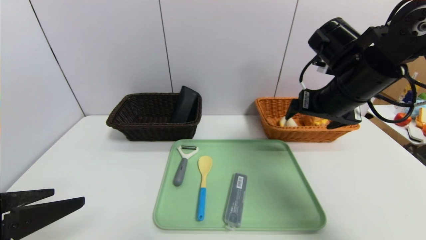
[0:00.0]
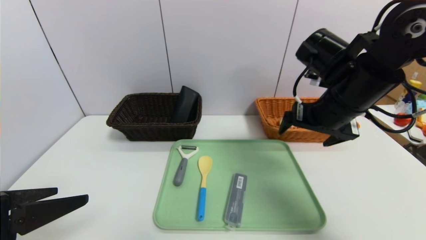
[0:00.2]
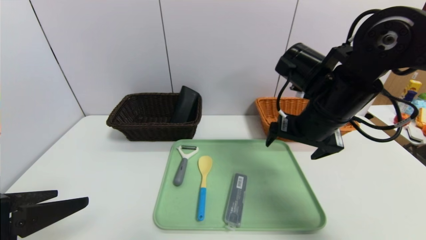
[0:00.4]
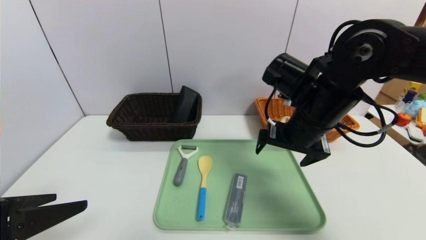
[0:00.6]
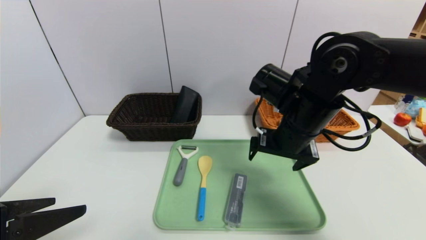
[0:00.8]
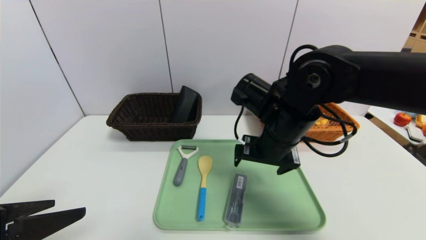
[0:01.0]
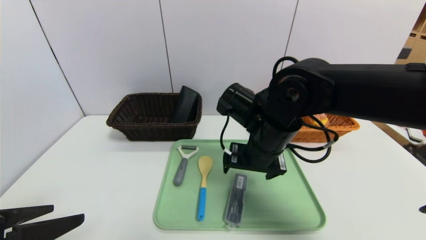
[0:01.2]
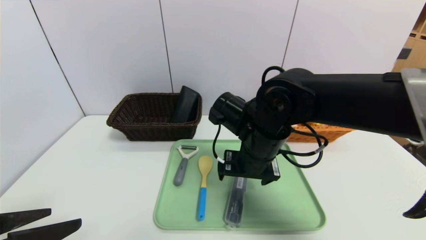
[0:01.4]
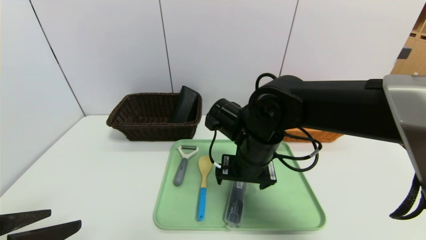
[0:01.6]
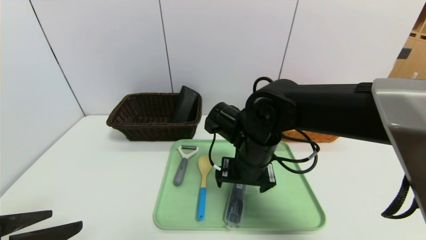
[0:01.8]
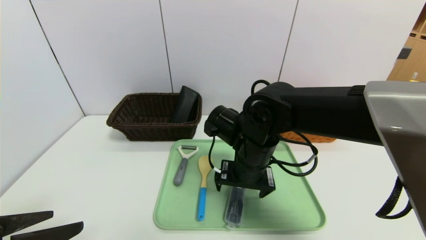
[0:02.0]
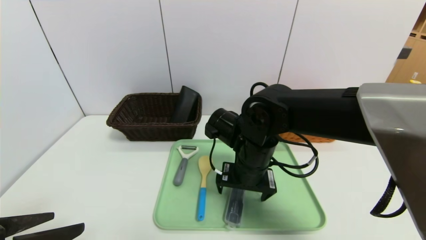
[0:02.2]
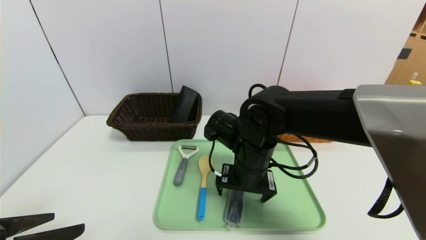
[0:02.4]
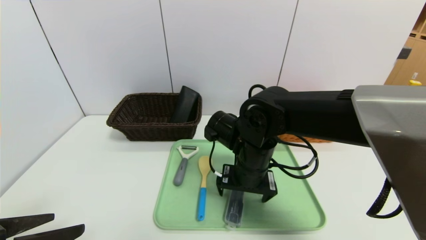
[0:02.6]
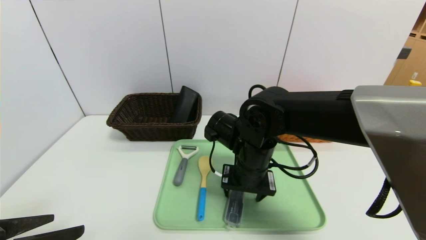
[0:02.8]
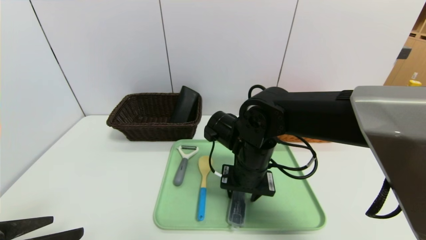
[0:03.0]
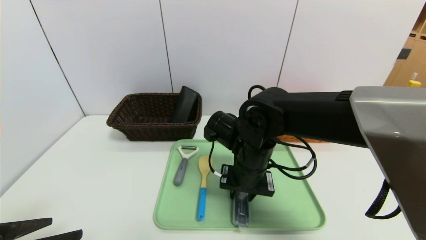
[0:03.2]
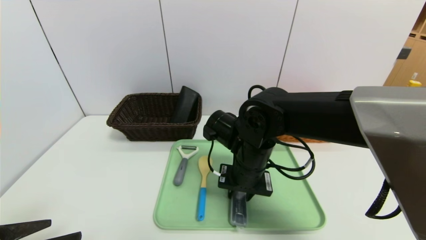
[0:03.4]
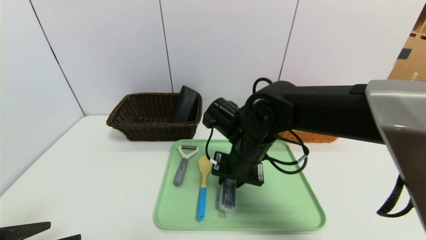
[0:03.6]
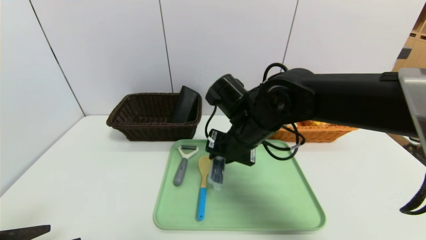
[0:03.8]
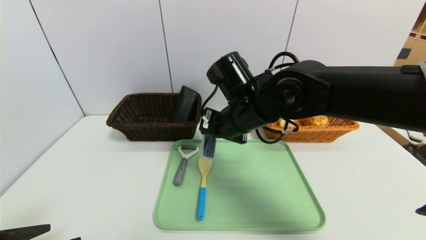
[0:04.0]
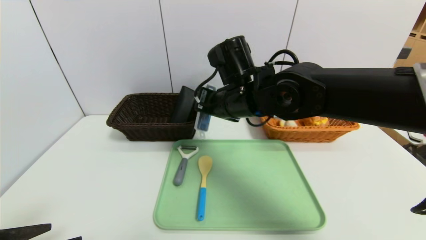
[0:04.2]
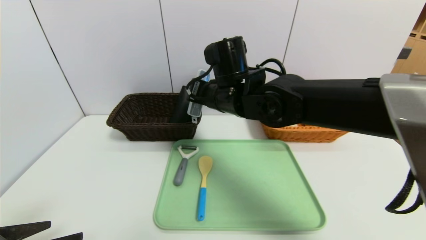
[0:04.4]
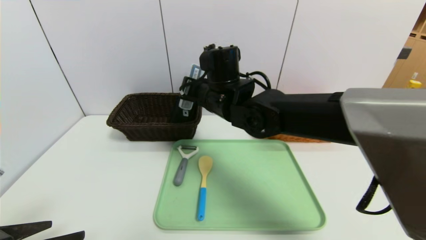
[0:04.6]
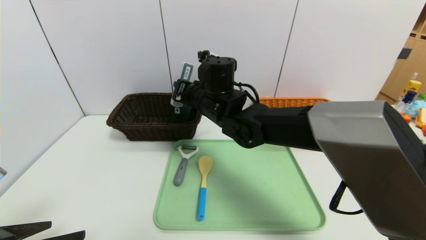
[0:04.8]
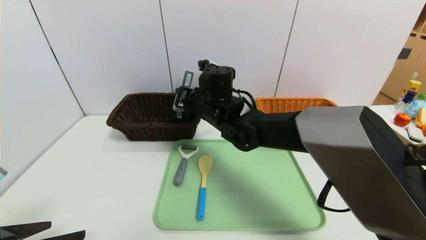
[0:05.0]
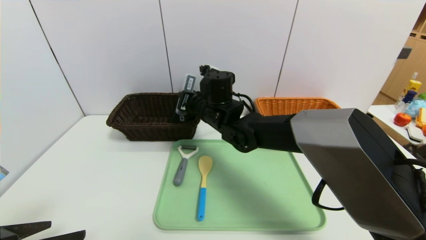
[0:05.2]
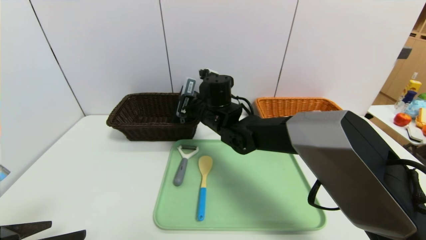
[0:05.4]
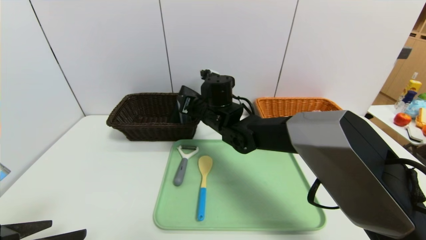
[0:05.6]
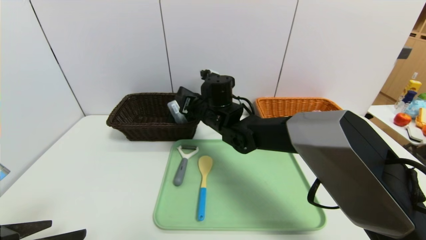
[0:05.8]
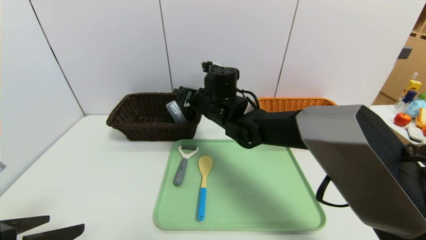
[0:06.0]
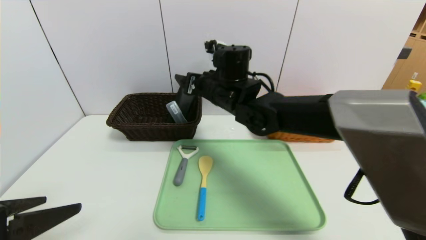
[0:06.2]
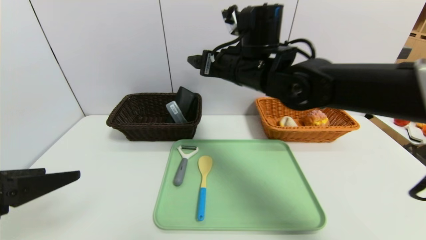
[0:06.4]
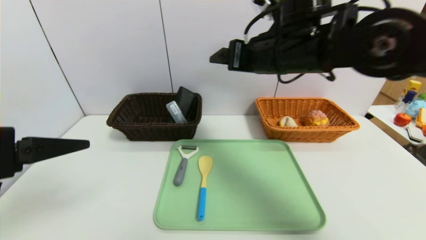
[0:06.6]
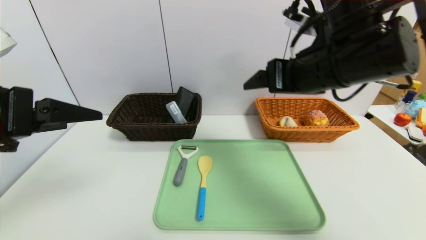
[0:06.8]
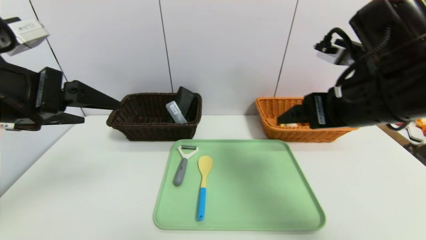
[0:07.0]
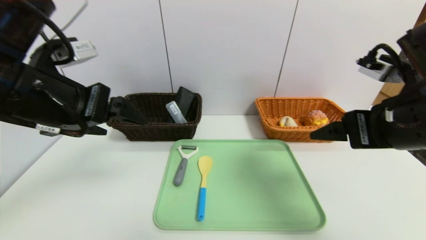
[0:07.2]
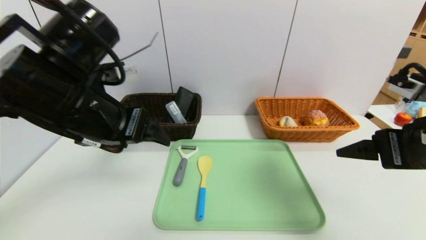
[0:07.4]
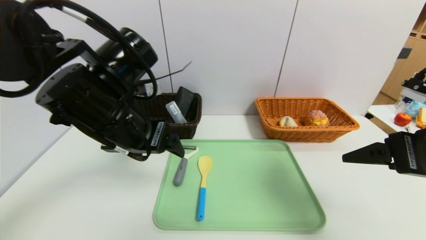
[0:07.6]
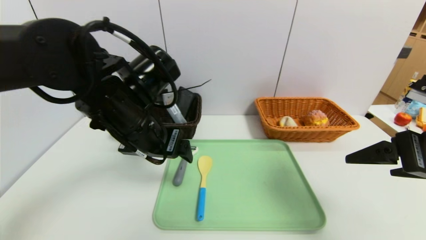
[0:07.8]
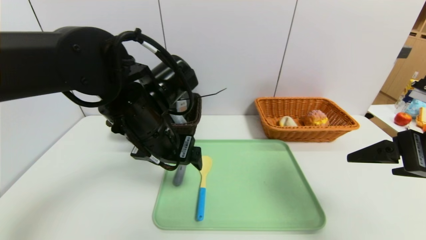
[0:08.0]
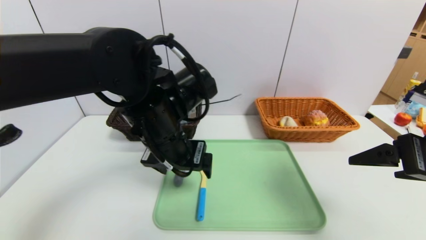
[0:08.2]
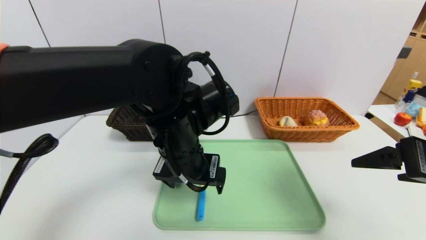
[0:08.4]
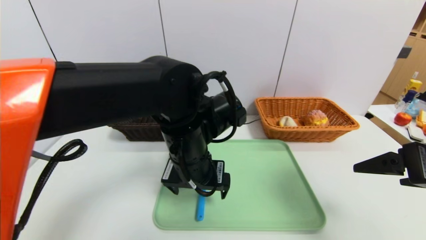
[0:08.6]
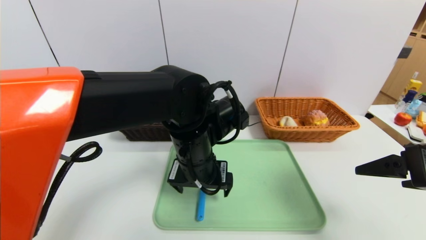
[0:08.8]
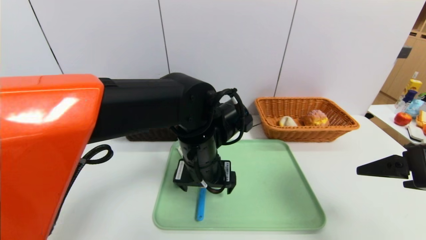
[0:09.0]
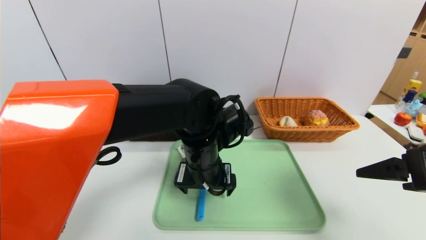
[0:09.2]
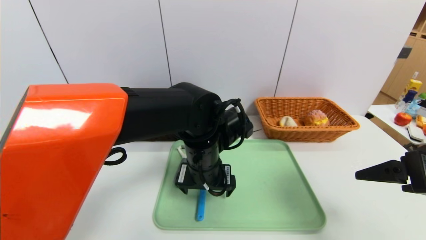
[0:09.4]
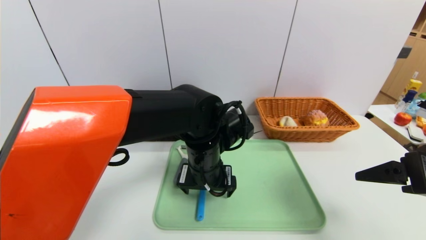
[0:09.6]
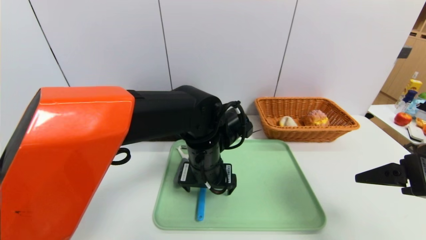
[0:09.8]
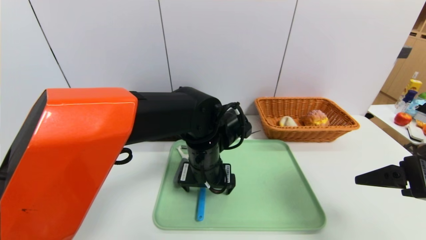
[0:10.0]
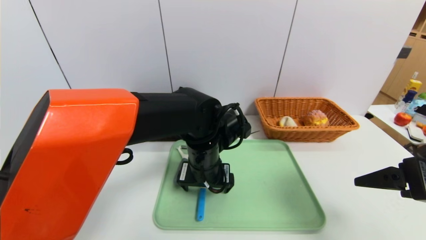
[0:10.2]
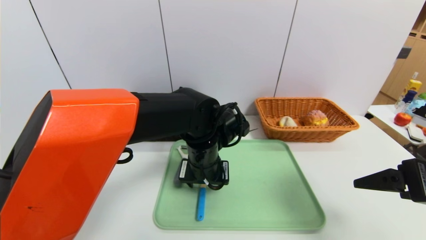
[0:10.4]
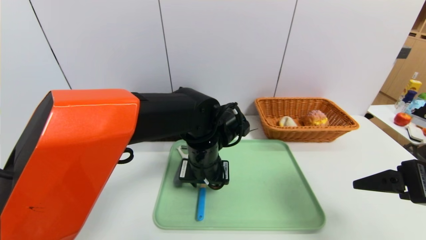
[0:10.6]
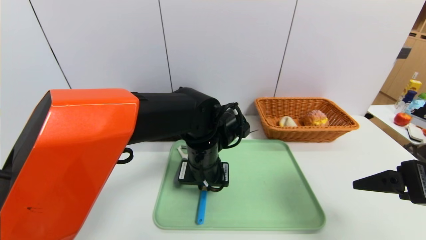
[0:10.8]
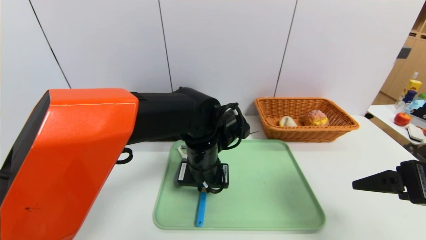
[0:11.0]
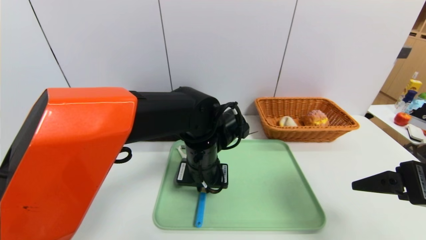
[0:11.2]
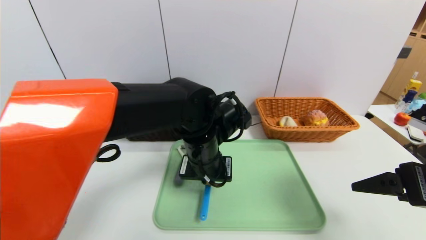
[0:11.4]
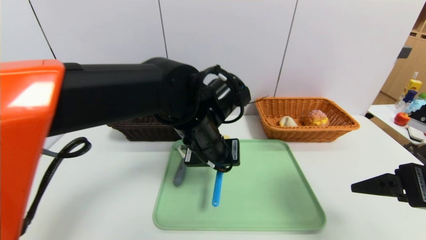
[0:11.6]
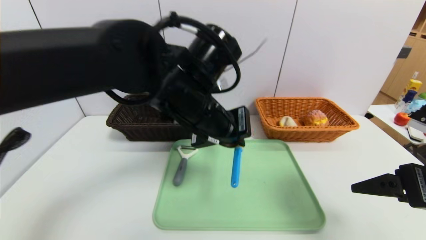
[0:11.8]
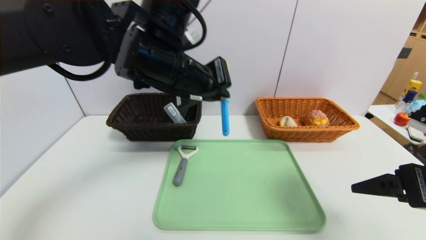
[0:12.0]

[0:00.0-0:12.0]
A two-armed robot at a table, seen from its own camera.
Task of the whole recording: place the food in the right basket with the right gripper, and place the non food items in the left basket with the left gripper.
0:00.0 to 0:01.6: The right gripper shifts approximately 20 cm to the left and downward.
0:01.6 to 0:03.0: The right gripper closes up.
0:03.0 to 0:04.4: The right gripper heads upward and forward, covering approximately 10 cm.
0:04.4 to 0:06.0: The right gripper goes some 5 cm forward and downward, and opens its fingers.
0:06.0 to 0:07.6: The left gripper is displaced forward, to the right and upward by about 25 cm. Meanwhile the right gripper heads to the right and backward, covering roughly 35 cm.
0:07.6 to 0:09.0: The left gripper shifts approximately 15 cm to the right and downward.
0:09.0 to 0:10.4: The grippers stay close to where they were, moving slightly.
0:10.4 to 0:12.0: The left gripper travels upward by approximately 15 cm, and closes up.

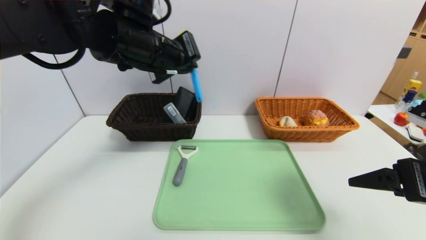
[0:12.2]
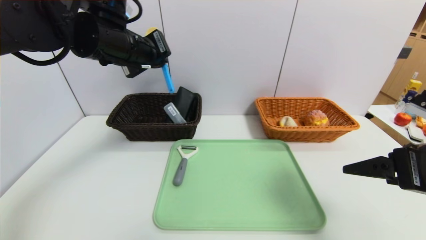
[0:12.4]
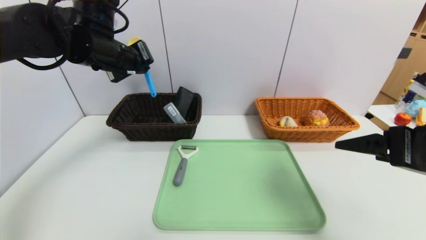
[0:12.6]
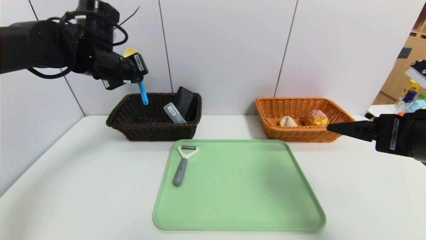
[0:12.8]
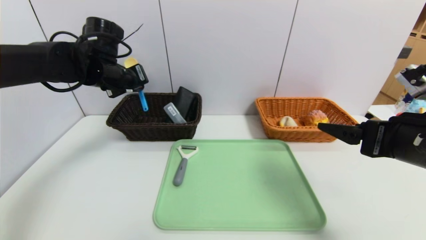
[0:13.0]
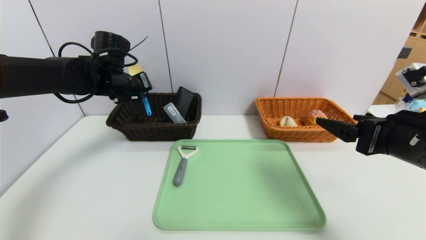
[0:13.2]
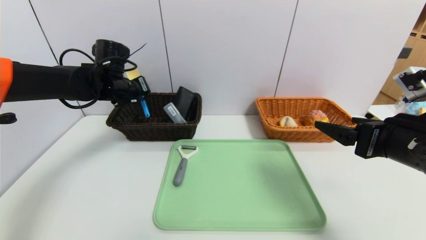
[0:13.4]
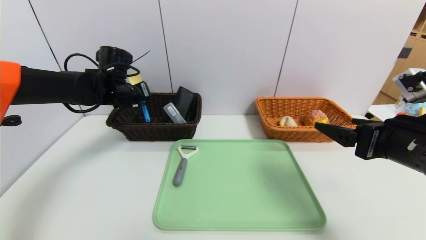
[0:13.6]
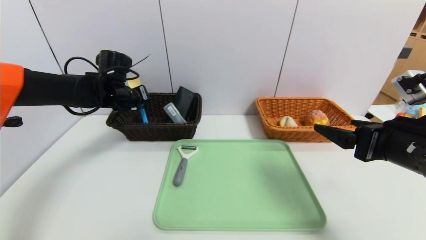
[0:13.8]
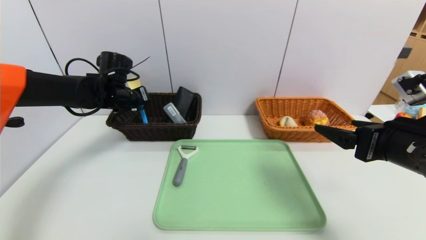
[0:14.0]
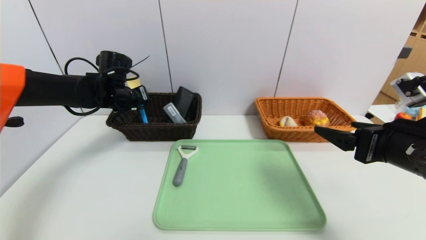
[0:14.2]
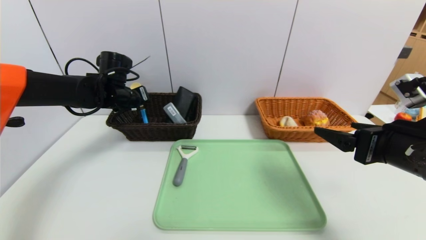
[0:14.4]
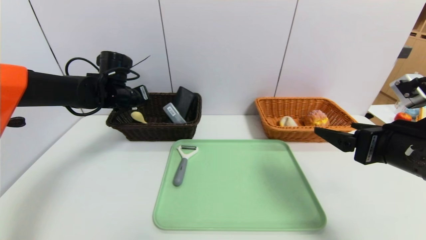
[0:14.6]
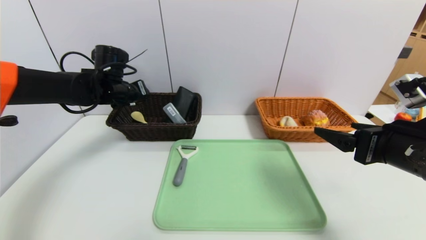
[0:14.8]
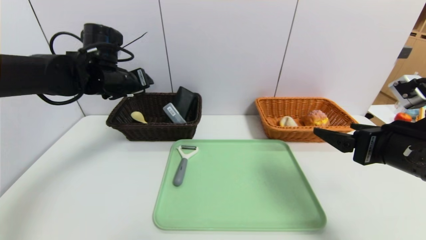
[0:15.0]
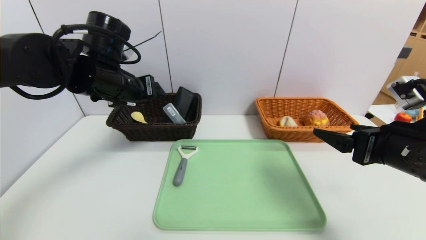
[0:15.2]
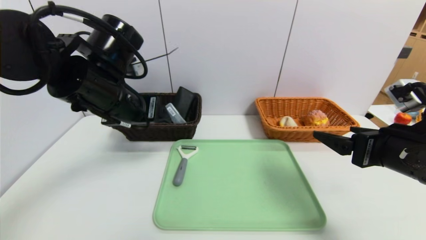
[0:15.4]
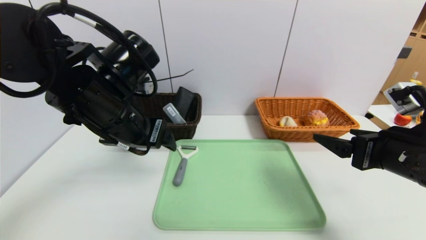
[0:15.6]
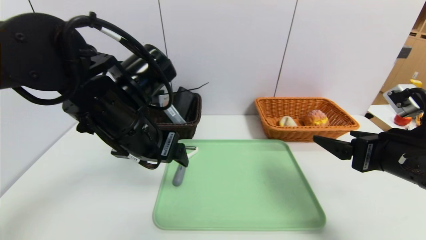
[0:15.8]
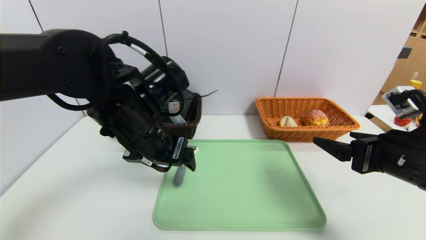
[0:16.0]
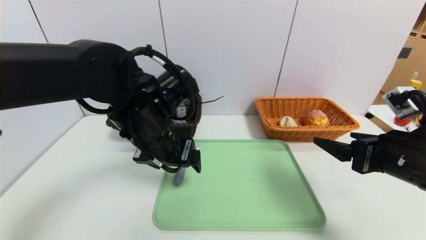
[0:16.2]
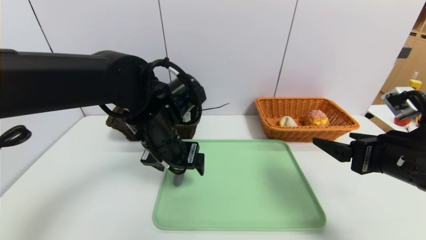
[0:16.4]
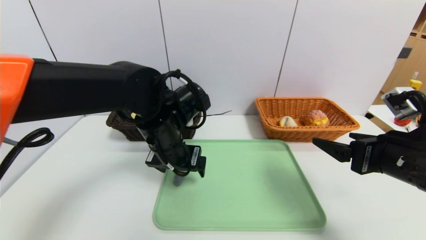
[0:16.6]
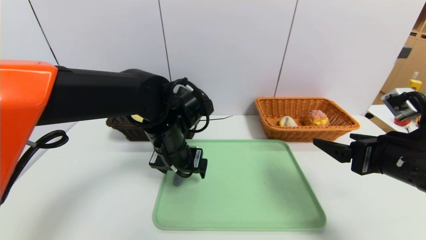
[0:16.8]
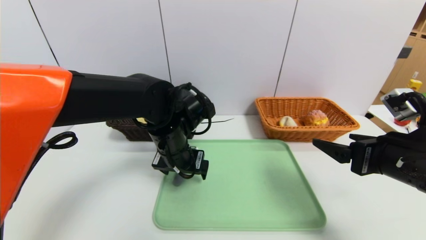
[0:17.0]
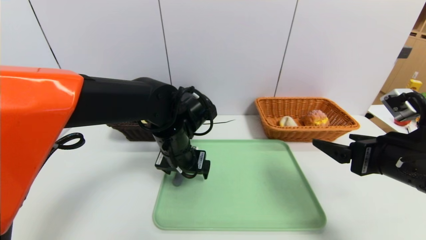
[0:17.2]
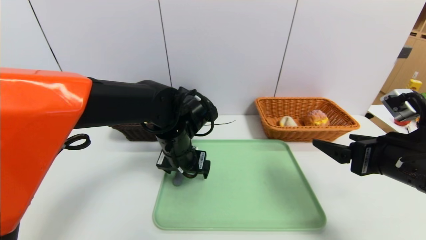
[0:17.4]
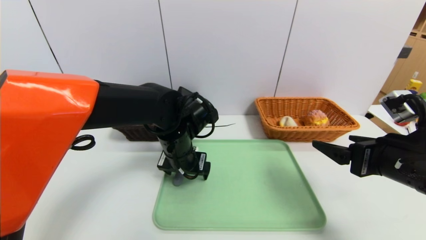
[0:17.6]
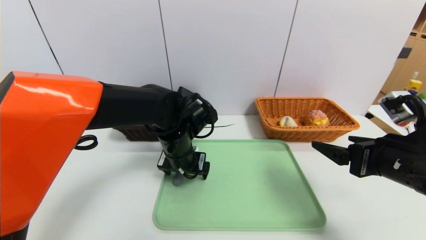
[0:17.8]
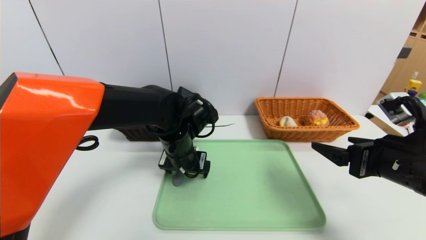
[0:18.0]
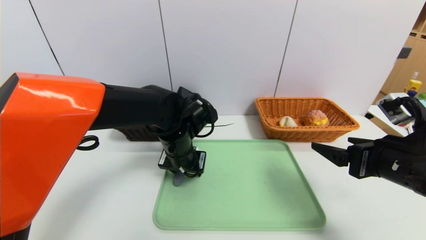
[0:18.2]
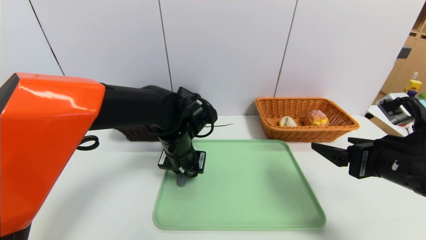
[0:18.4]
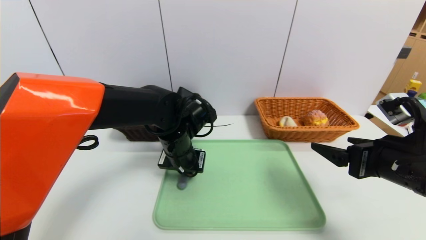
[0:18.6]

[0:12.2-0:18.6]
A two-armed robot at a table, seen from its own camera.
Task of the whole recording: place the food in the right basket with the right gripper, and place the non food items in the left basket with the left gripper.
Step, 0:12.2 to 0:14.8: Grasp the spoon and put it in the left basket.
0:12.2 to 0:13.8: The left gripper heads downward, to the left and forward, covering approximately 20 cm.
0:13.8 to 0:15.4: The left gripper is displaced backward, to the right and upward by about 15 cm, and opens.
0:15.4 to 0:17.0: The left gripper is displaced downward and to the right by about 15 cm.
0:17.0 to 0:18.6: The left gripper closes its fingers.
